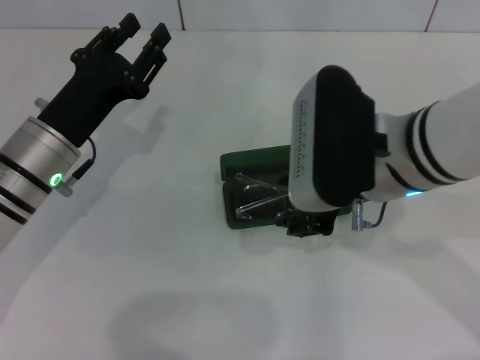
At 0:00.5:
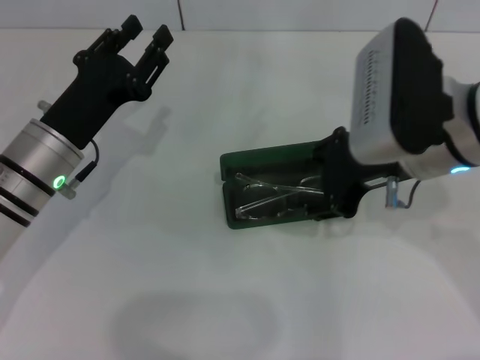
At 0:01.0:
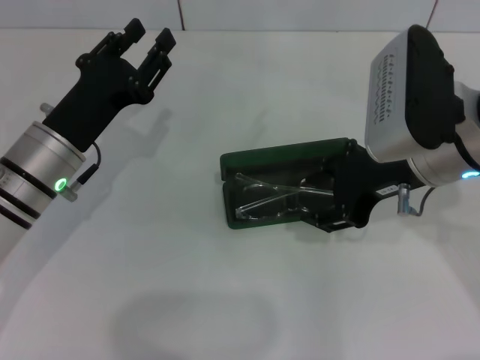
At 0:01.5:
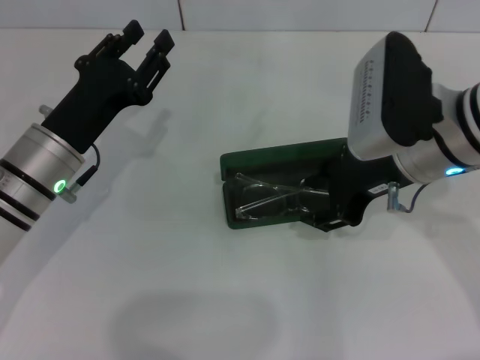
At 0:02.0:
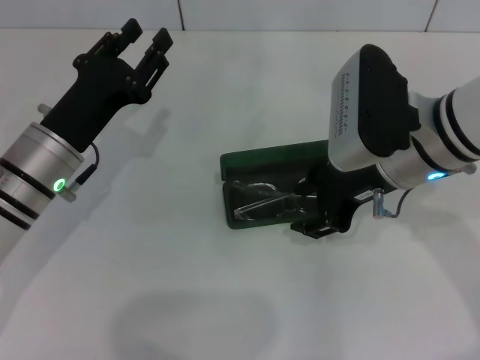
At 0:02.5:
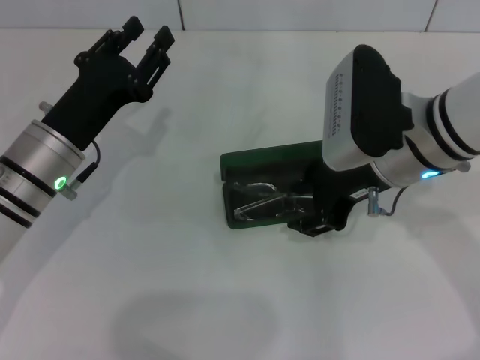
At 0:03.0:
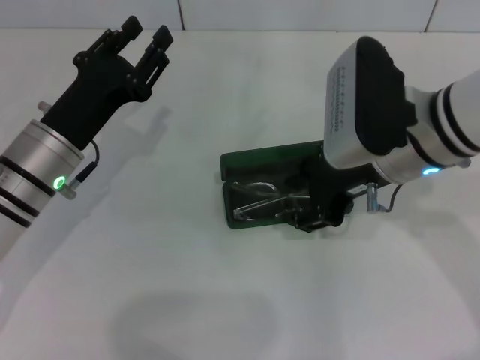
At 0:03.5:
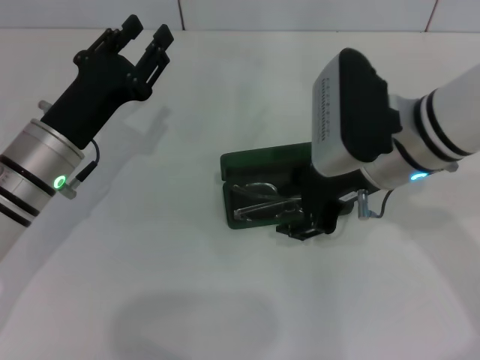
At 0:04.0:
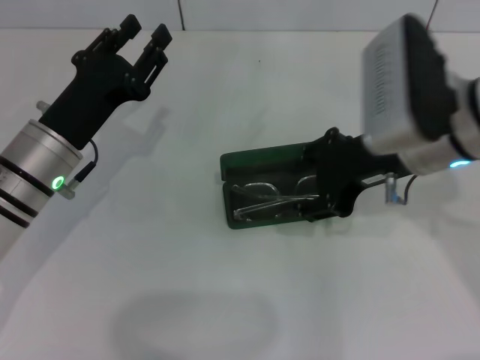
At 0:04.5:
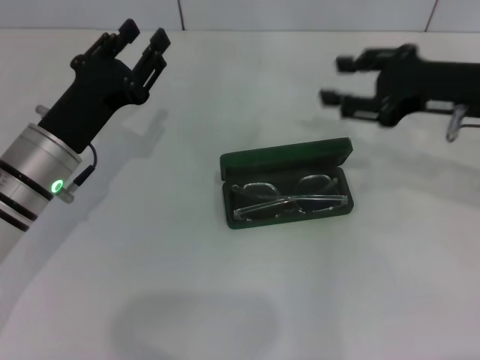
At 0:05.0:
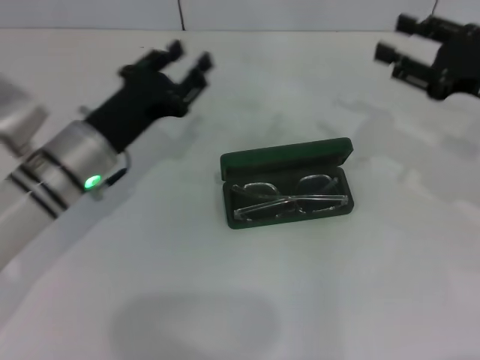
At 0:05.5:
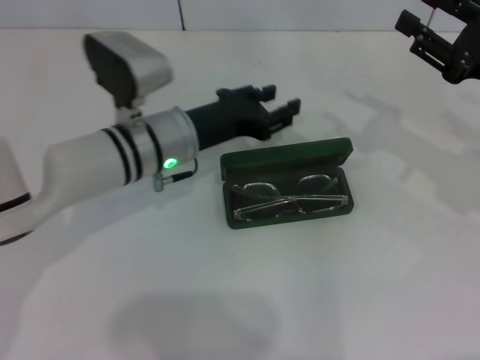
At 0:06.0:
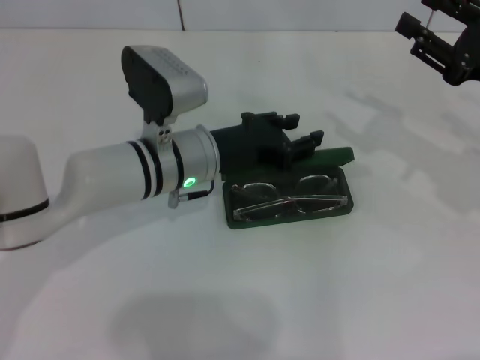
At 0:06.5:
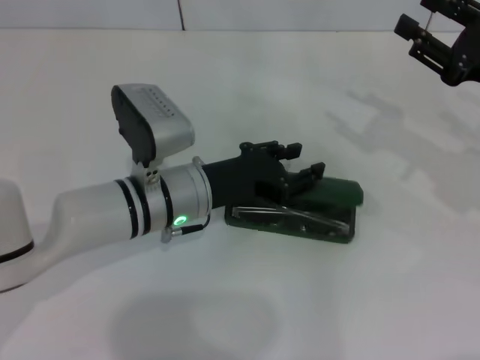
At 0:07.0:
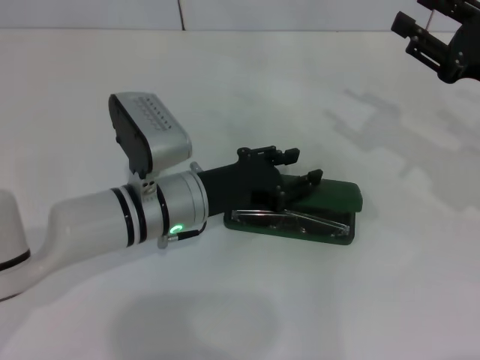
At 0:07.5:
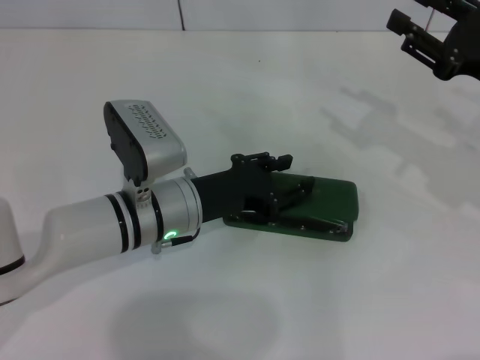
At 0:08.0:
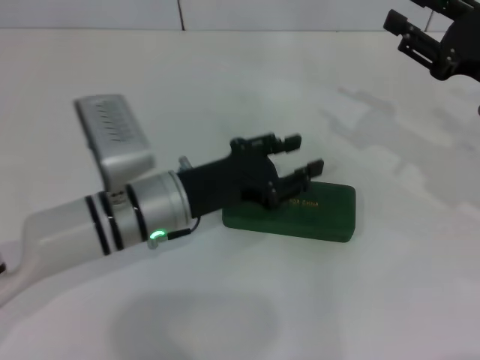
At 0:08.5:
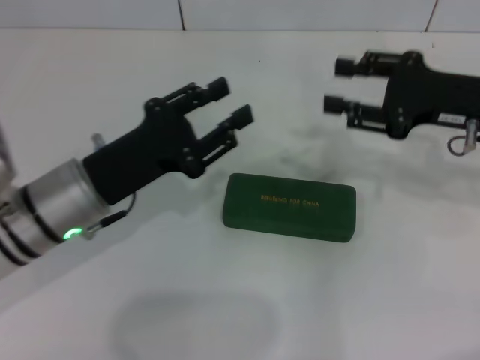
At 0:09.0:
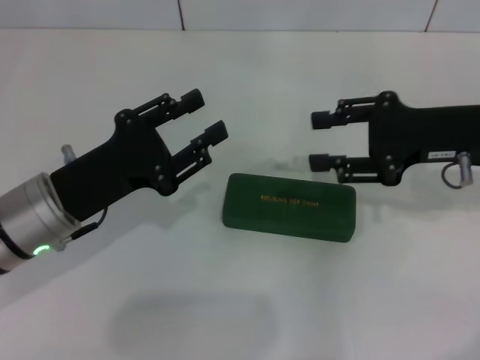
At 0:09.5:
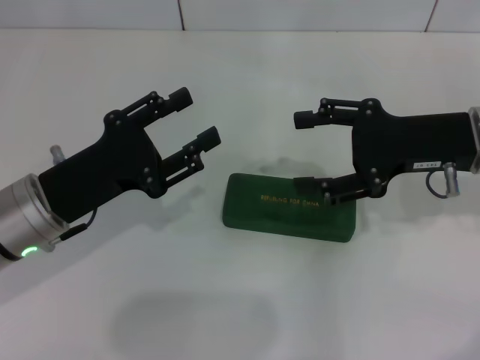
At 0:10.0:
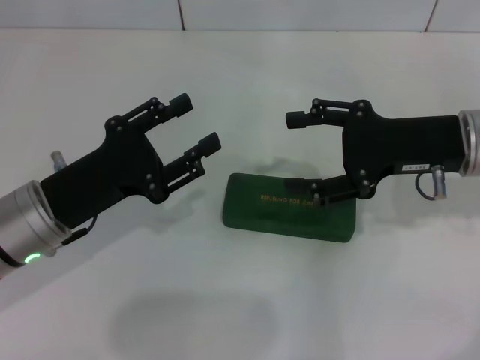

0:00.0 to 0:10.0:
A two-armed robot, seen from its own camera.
Step, 0:00.0 to 0:07.5: Close the glasses case with your left hand.
0:00.0 to 0:02.0: The right gripper moves roughly 5 cm.
0:02.0 to 0:04.0: The grippers move only a little.
0:04.0 to 0:06.0: Both grippers travel together to the right, approximately 15 cm.
0:06.0 to 0:08.0: The left gripper shifts approximately 5 cm backward.
0:08.0 to 0:10.0: The two grippers go about 10 cm to the left. The right gripper opens.
